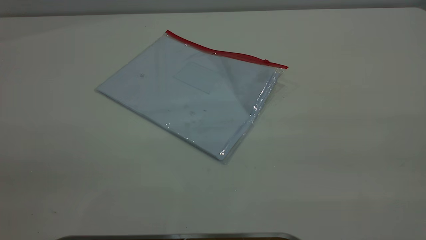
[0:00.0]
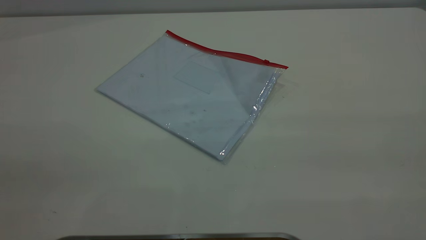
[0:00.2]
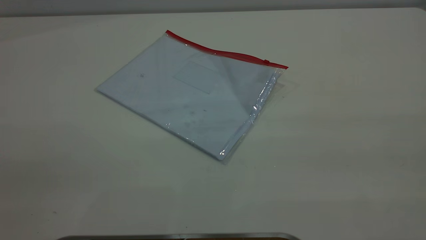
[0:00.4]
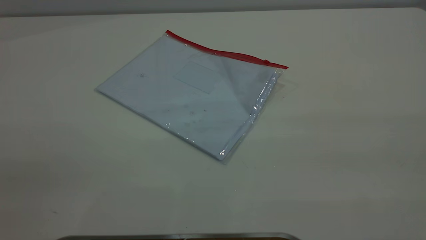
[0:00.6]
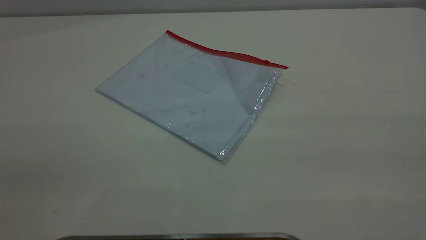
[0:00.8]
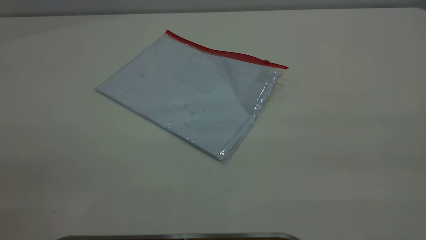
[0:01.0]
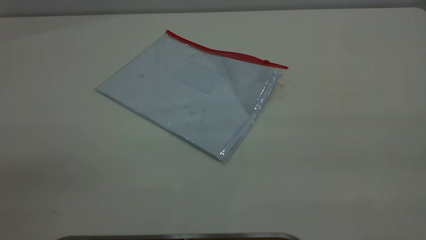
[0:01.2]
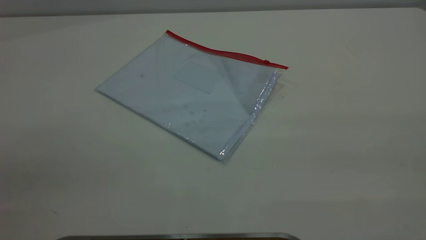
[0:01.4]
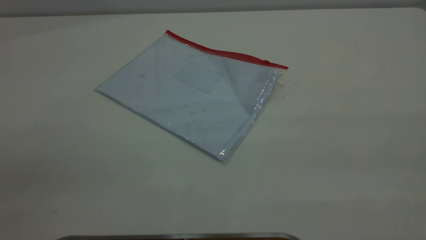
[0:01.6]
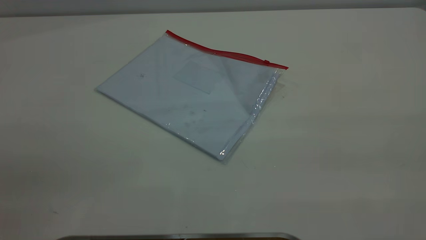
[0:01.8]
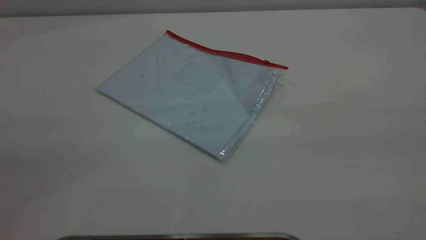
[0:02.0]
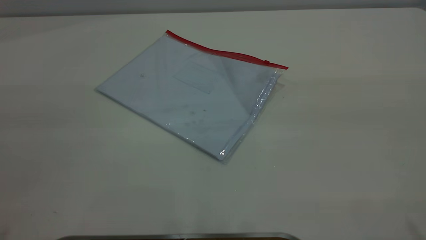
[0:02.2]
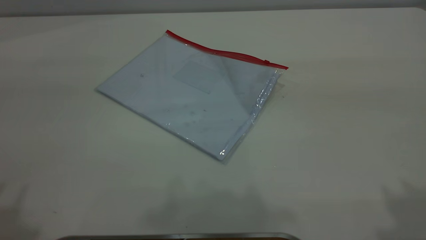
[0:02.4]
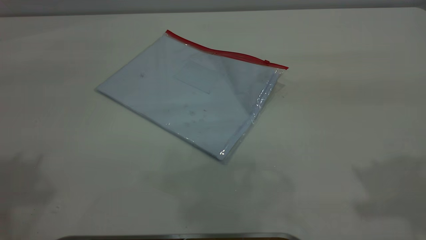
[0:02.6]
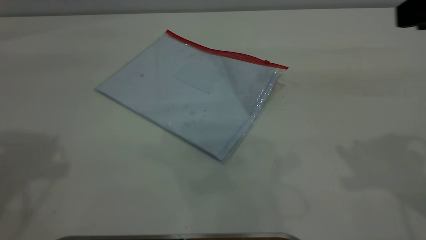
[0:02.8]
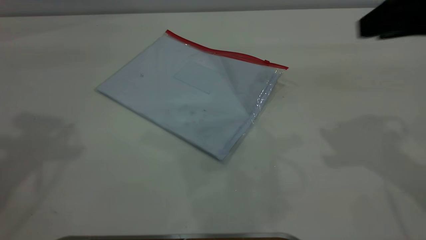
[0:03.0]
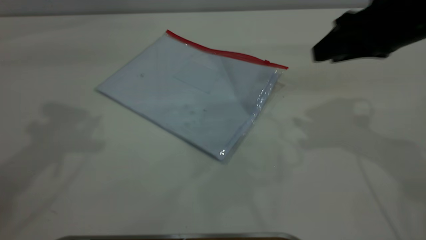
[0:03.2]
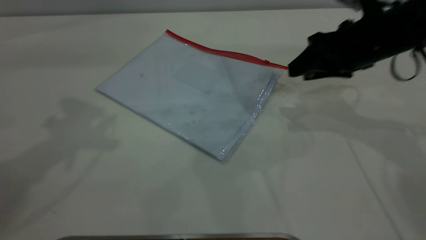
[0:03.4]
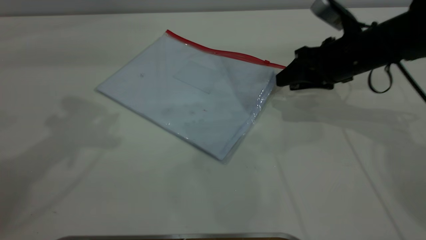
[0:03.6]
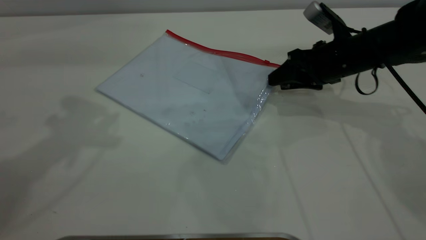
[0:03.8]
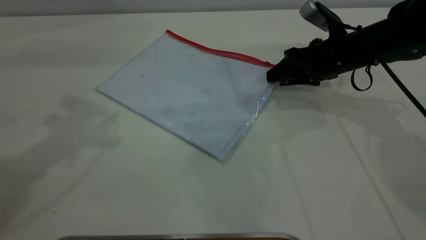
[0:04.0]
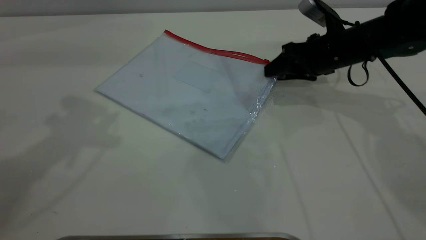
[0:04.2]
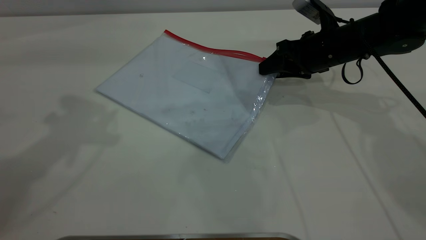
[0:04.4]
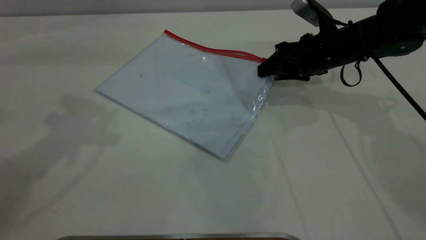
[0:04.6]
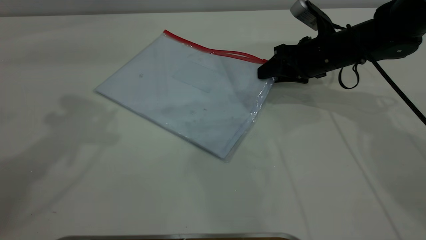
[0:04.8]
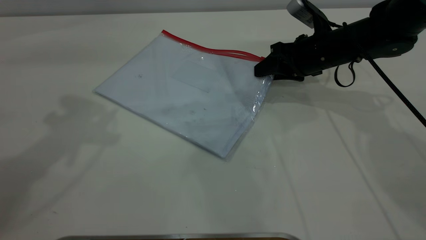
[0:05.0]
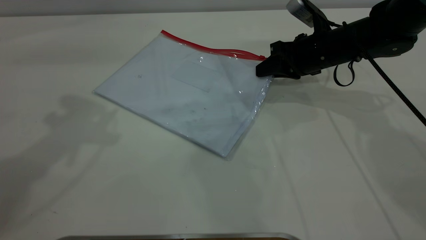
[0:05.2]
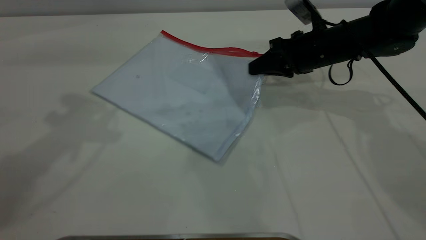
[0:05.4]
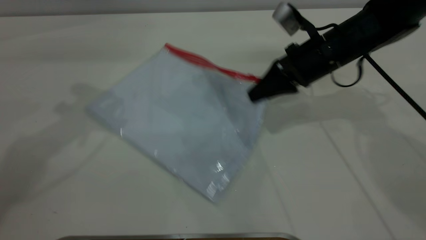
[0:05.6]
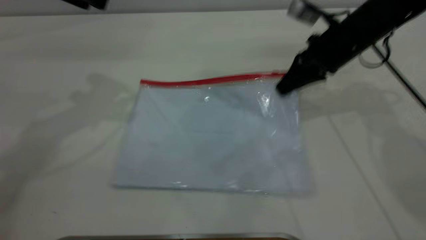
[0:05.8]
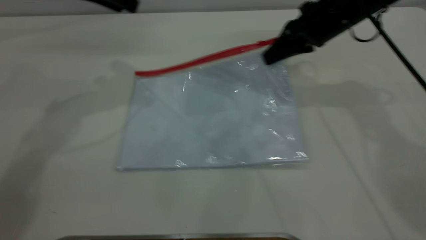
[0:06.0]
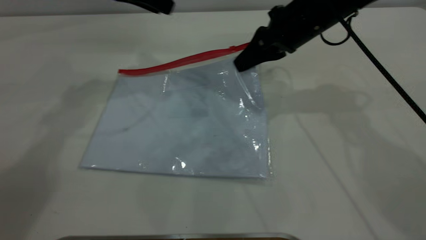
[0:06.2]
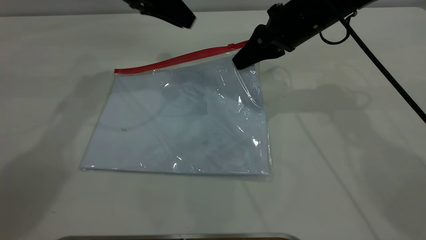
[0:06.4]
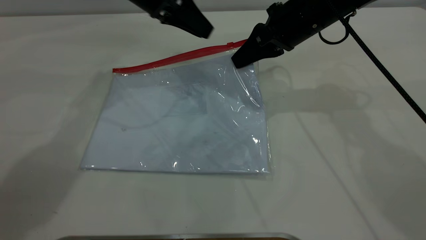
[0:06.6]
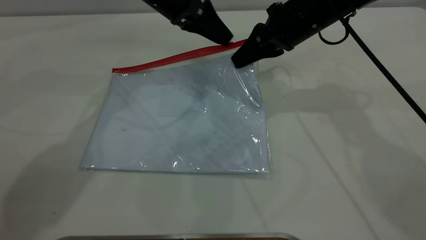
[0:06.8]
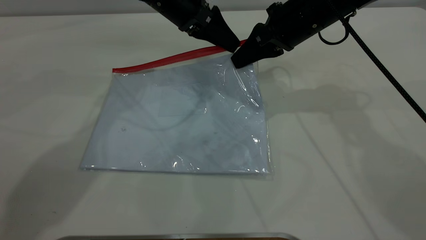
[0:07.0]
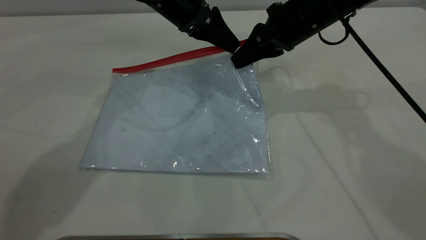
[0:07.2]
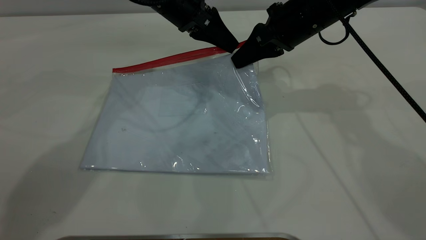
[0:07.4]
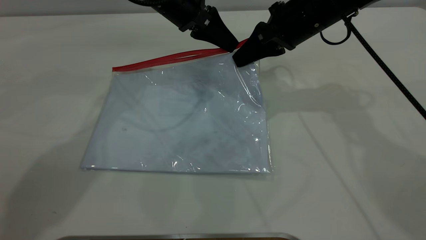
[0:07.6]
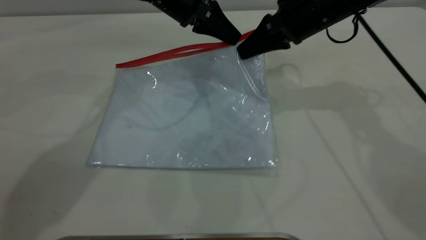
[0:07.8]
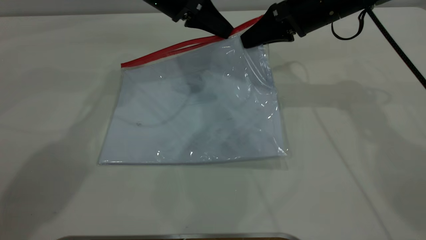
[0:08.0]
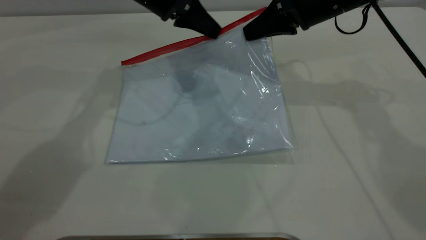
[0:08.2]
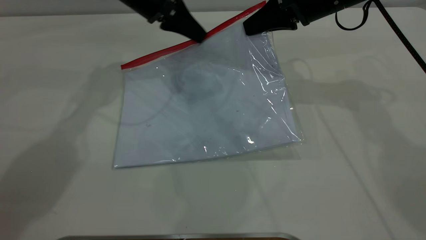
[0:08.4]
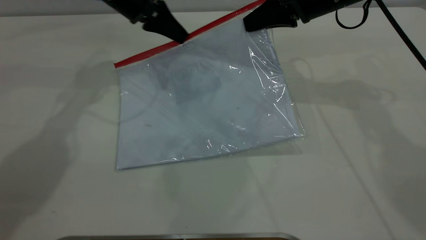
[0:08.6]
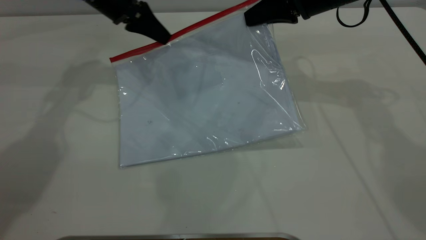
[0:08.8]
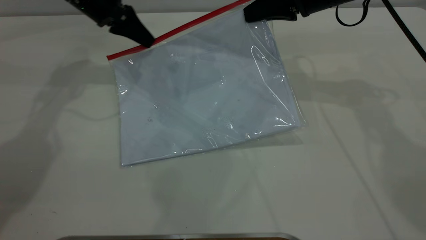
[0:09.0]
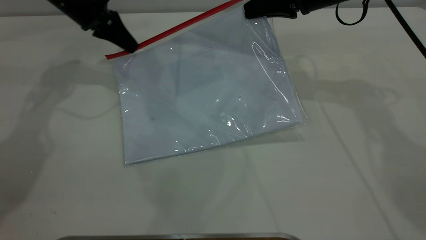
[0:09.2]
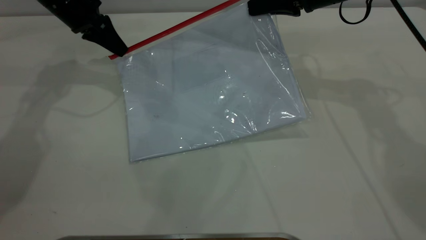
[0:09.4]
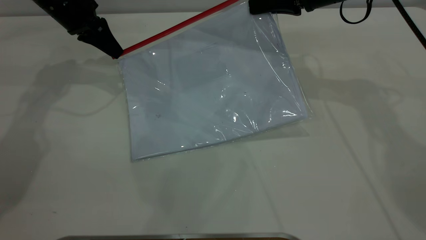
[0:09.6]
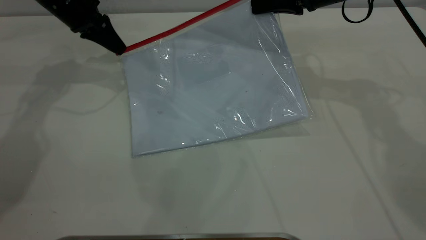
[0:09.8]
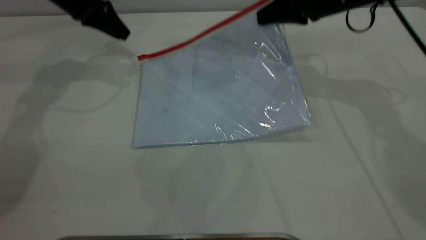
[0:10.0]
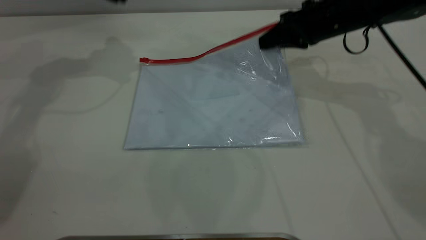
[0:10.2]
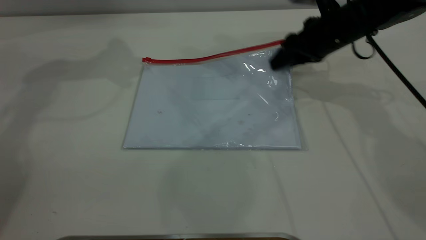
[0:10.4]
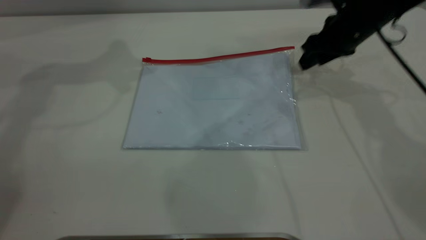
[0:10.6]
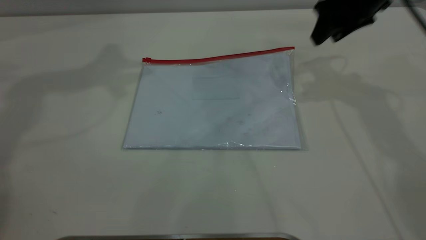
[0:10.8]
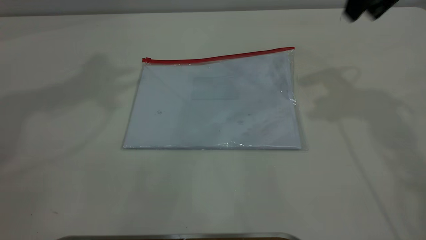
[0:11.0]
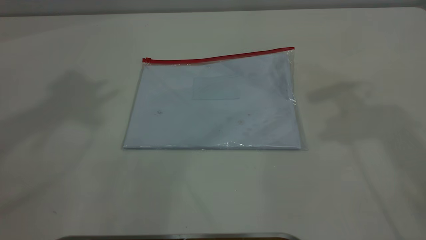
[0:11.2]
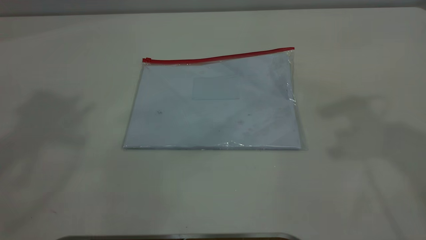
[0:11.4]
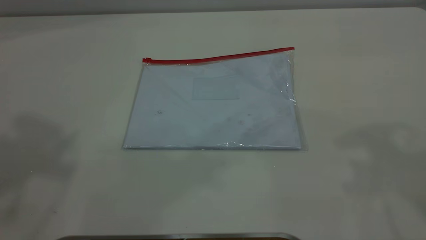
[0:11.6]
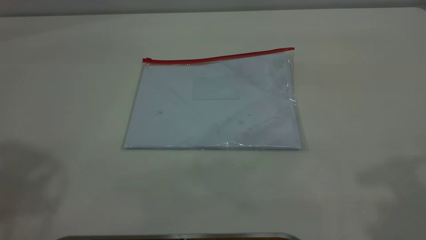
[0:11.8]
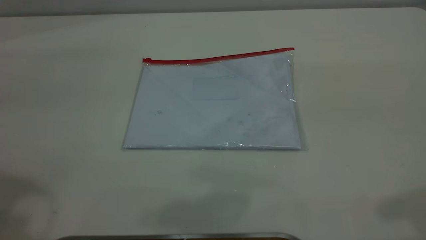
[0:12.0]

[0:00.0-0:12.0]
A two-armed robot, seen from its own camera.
Step, 0.0 to 6.2 s: Pick up the transparent plastic bag with the right gripper.
Step, 6.4 to 10.0 s: Pulling up the zipper on the transparent plastic bag with the left gripper to close it.
Step, 10.2 to 11.0 s: Place the transparent plastic bag.
0.0 to 1.6 s: Both grippers stay put.
1.6 to 3.0 s: The right gripper heads forward and downward, covering some 30 cm.
3.0 to 4.4 s: The left gripper moves roughly 5 cm; the right gripper is displaced downward and forward by some 20 cm.
4.4 to 6.0 s: The left gripper heads forward, downward and to the right, covering approximately 15 cm. Meanwhile the right gripper travels upward by about 5 cm, and closes up.
6.0 to 7.6 s: The left gripper goes about 15 cm to the right and downward, and closes.
7.6 to 9.0 s: The left gripper shifts roughly 15 cm to the left.
9.0 to 10.4 s: The left gripper is displaced upward by about 15 cm, and opens. The right gripper travels downward by some 10 cm, and opens.
10.4 to 12.0 s: The left gripper travels backward by approximately 35 cm. The right gripper shifts some 40 cm backward and upward.

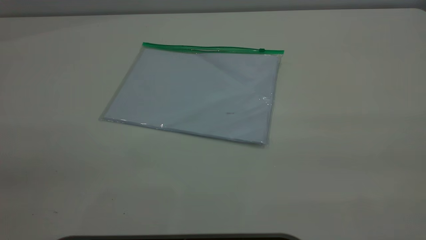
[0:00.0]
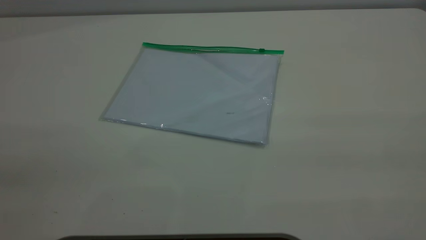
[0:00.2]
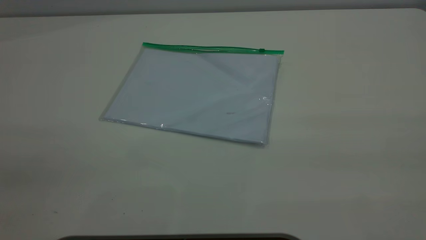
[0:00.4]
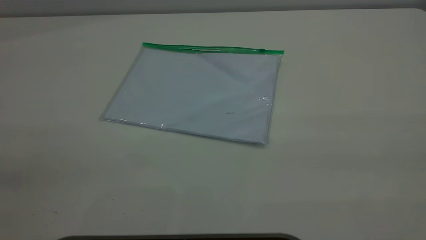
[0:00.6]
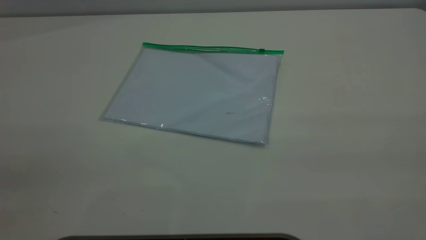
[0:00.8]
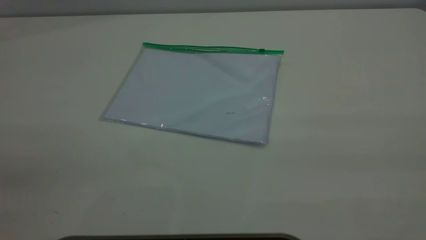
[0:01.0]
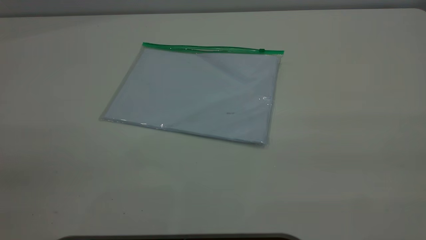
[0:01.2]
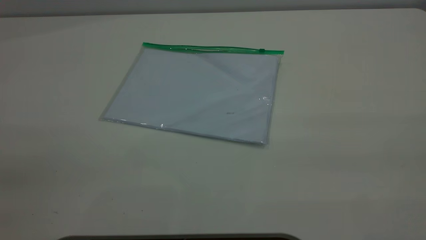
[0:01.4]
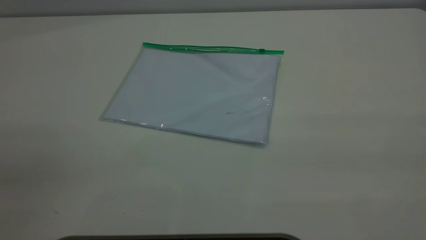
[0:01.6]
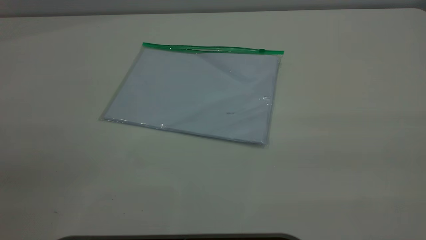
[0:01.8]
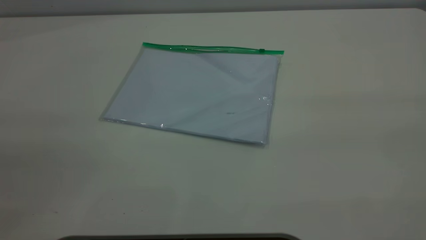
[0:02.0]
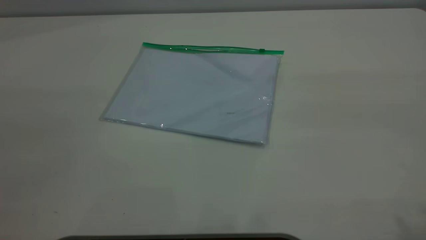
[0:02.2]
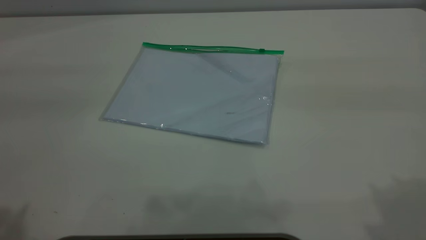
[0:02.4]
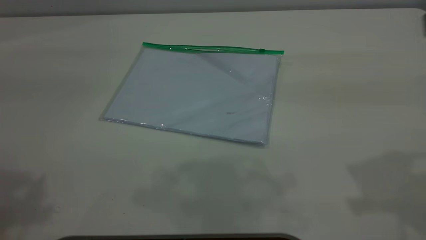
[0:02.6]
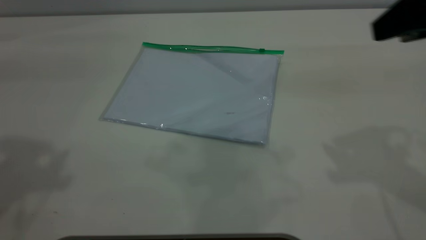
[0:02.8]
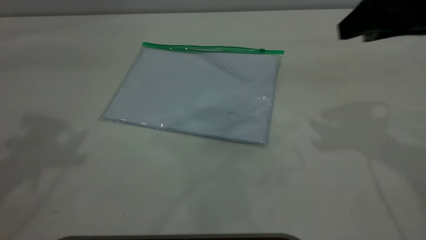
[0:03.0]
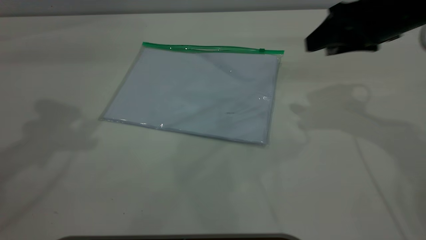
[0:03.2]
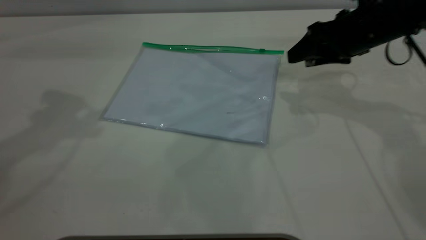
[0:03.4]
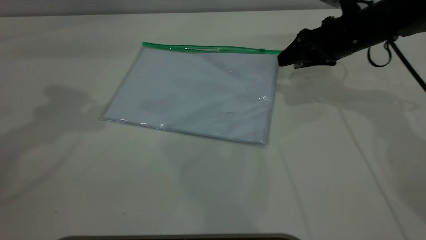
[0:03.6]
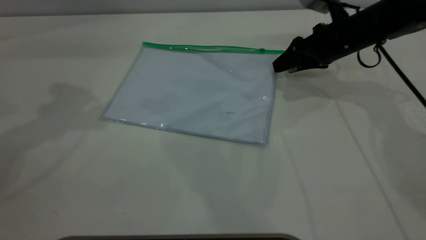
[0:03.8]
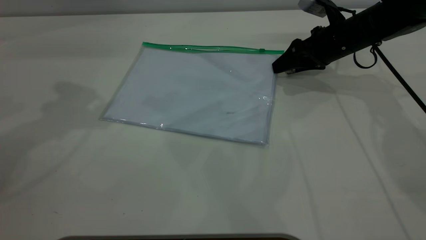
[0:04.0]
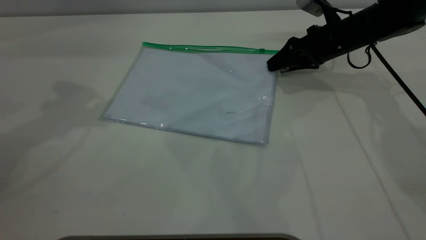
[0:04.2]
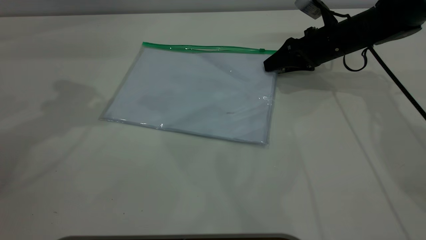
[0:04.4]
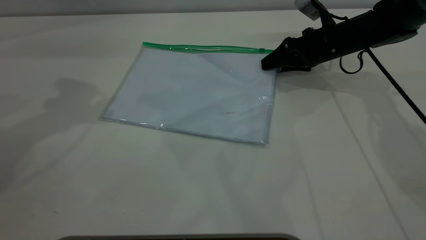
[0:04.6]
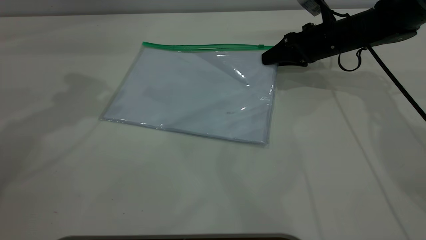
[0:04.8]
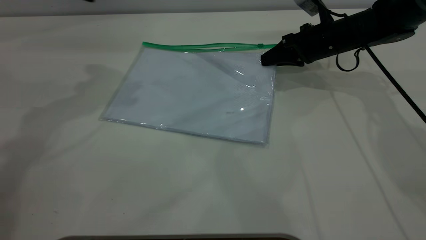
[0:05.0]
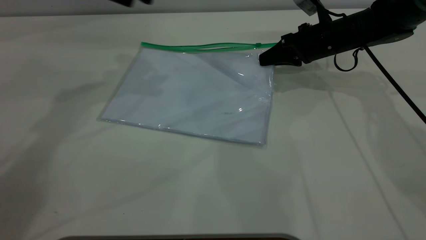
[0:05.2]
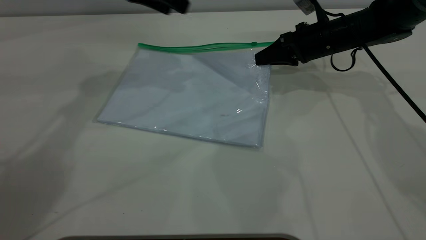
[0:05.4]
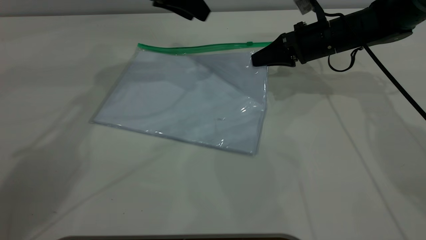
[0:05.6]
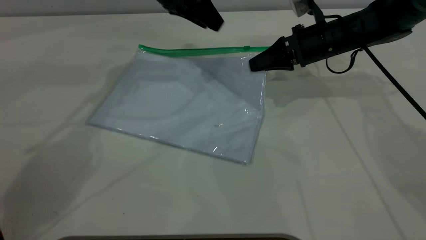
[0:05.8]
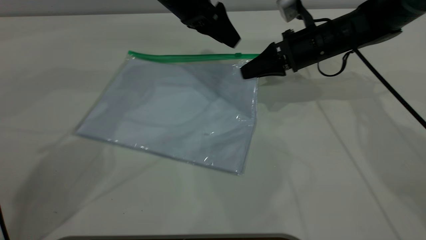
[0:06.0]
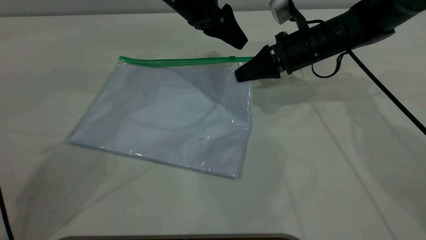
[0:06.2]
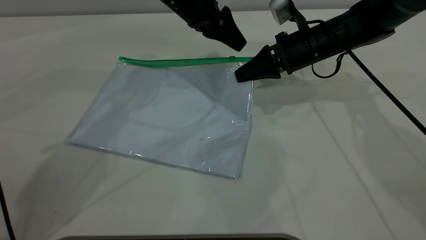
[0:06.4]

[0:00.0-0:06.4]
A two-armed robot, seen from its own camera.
Step, 0.0 to 5.6 s: Pick up the transparent plastic bag with the right gripper.
0.0 to 1.6 s: Both grippers stay about where they are.
1.6 to 3.2 s: The right gripper goes approximately 40 cm forward and downward.
3.2 to 4.8 s: The left gripper moves forward and downward, about 10 cm. Meanwhile the right gripper is displaced forward and downward by approximately 15 cm, and closes its fingers.
4.8 to 6.4 s: The right gripper heads to the left, covering about 5 cm, and closes. The left gripper heads to the right, downward and forward, covering about 25 cm.
